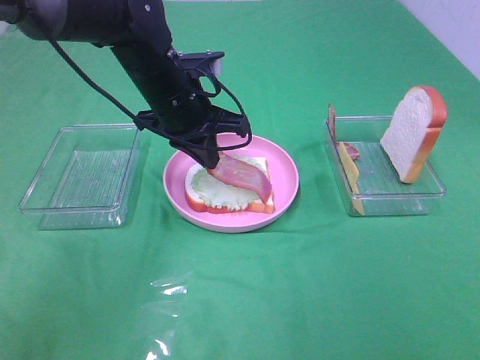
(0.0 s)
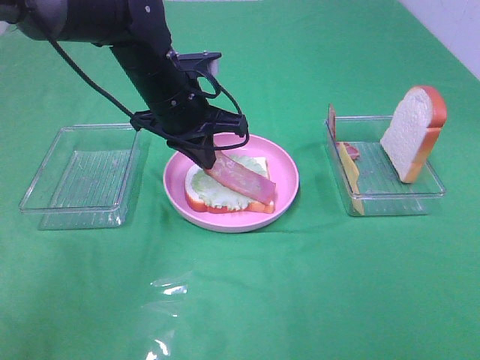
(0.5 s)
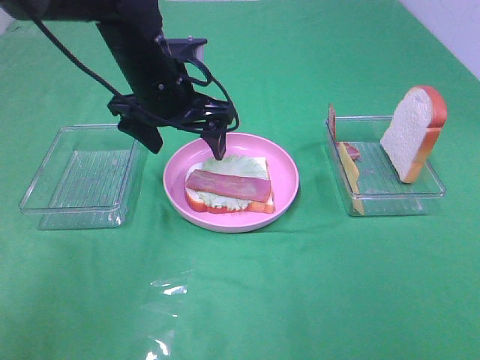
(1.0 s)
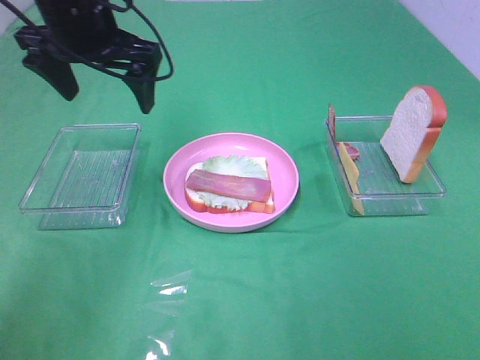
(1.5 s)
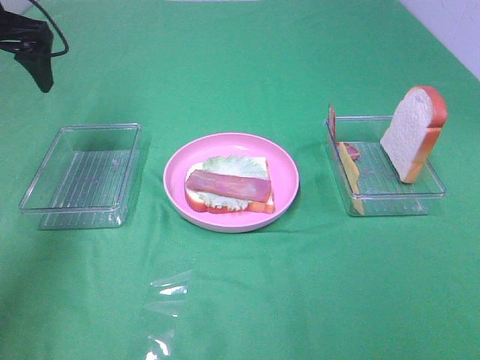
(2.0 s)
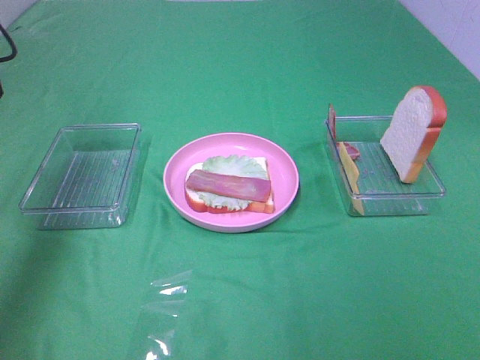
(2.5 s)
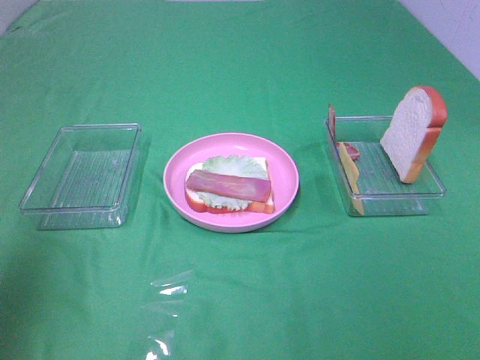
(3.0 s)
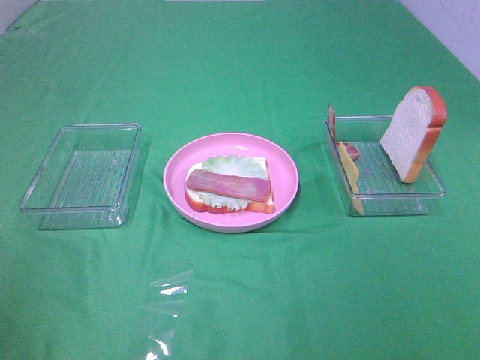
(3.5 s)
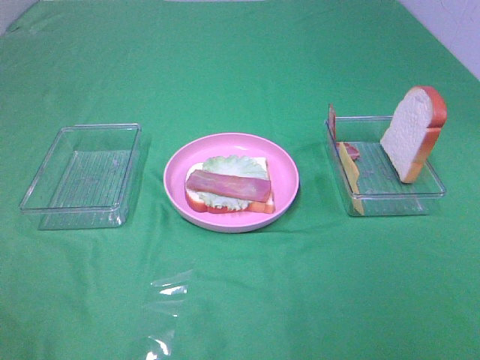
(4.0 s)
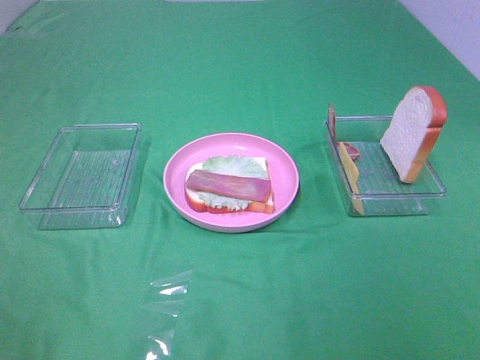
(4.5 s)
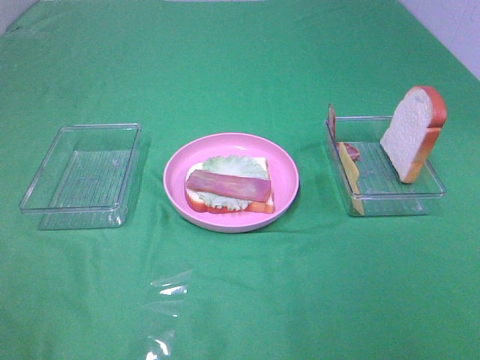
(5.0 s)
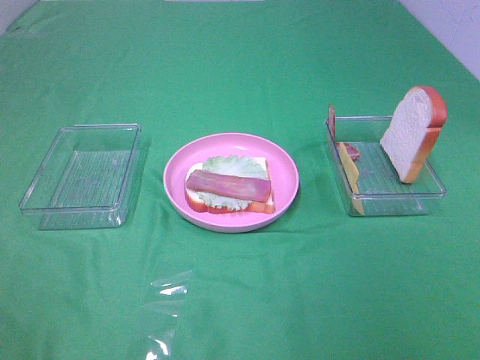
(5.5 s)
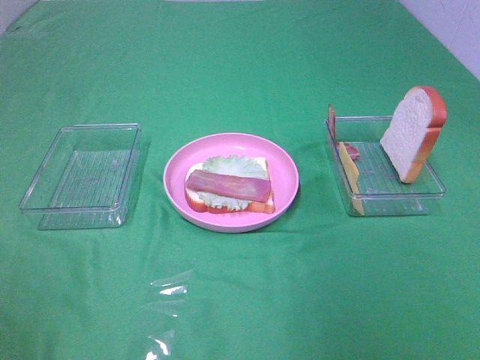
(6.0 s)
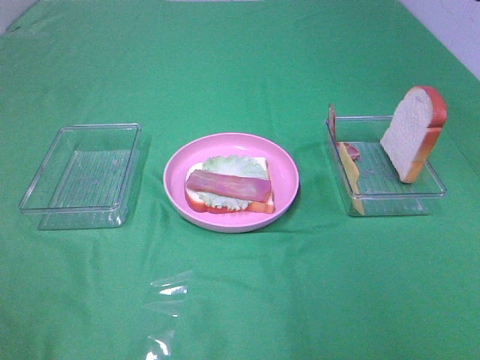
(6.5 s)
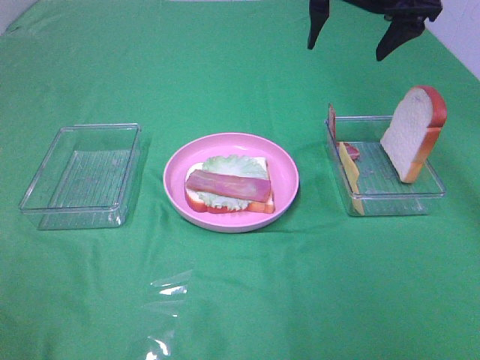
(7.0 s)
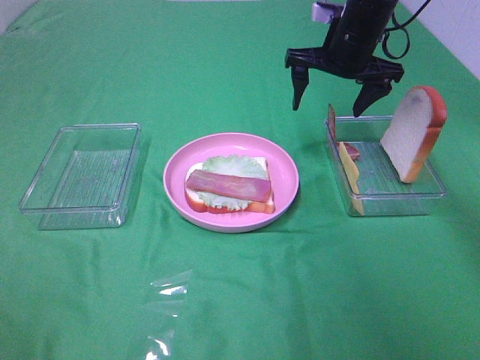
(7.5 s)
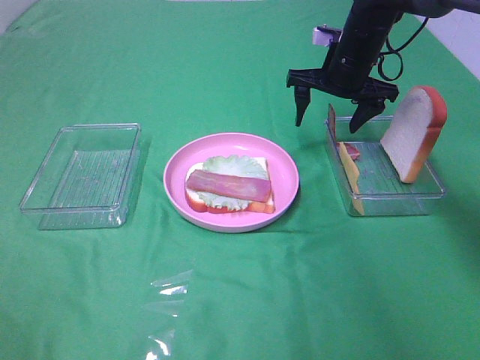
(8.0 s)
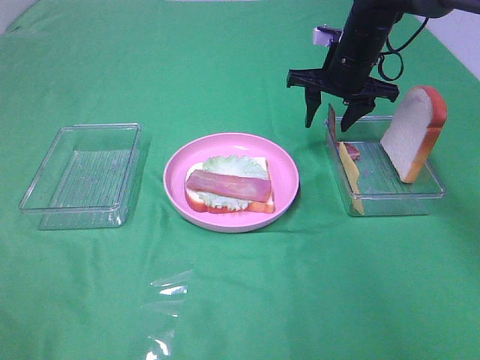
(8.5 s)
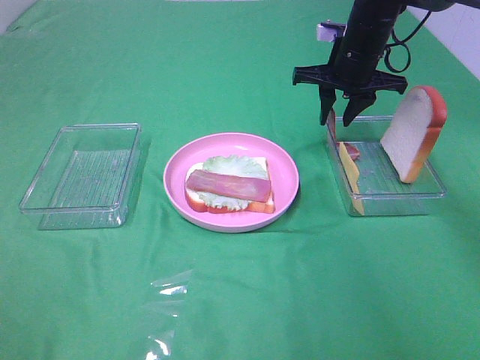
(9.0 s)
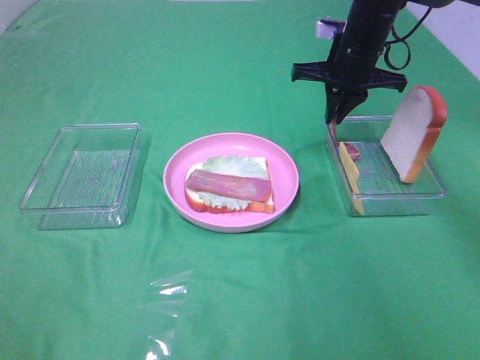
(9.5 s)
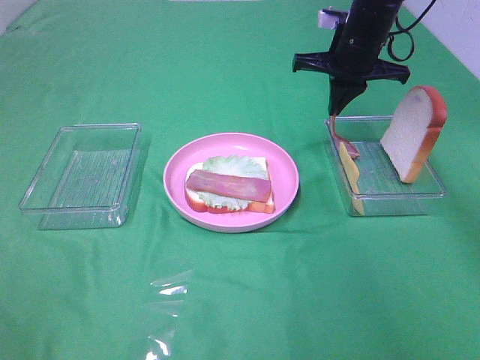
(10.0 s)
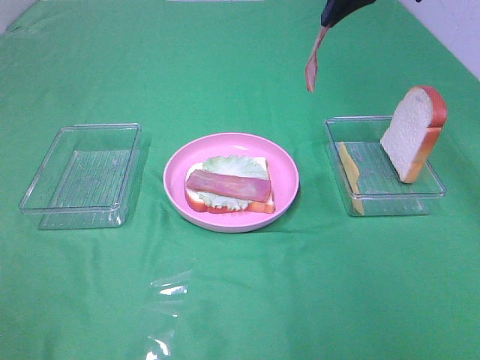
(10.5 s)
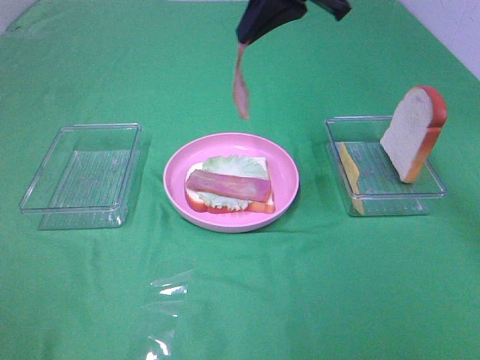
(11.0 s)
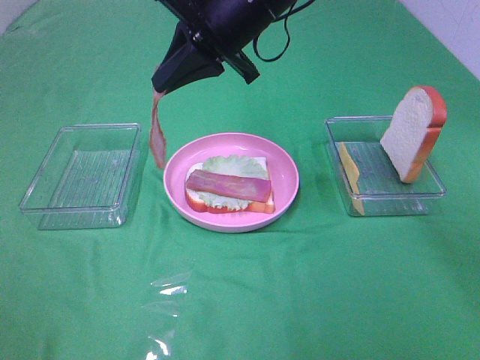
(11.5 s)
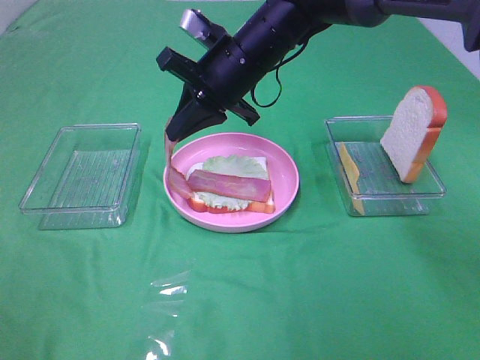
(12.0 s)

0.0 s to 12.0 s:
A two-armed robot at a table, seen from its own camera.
Task of the whole recording: Make sandwiches.
Step, 1.5 to 9.5 s: Right hand:grab the bacon.
0.0 to 2.0 s: The left gripper moves to the left and upward, some 25 cm, and opens its fingers.
2.0 to 4.0 s: The left gripper is displaced backward by some 40 cm.
6.0 to 8.0 s: The right gripper moves forward, downward and to the left, some 40 cm.
8.0 to 10.0 s: The right gripper closes its fingers.
10.0 to 12.0 s: The right gripper is displaced to the left and backward by approximately 15 cm.

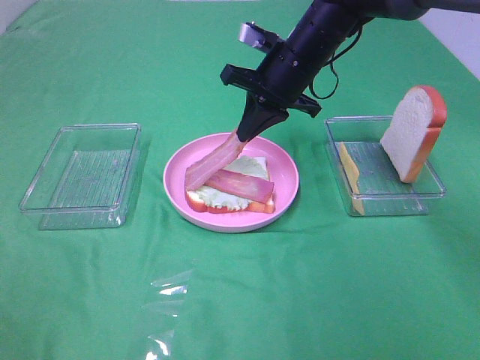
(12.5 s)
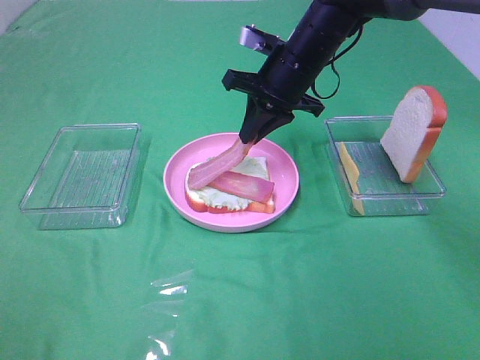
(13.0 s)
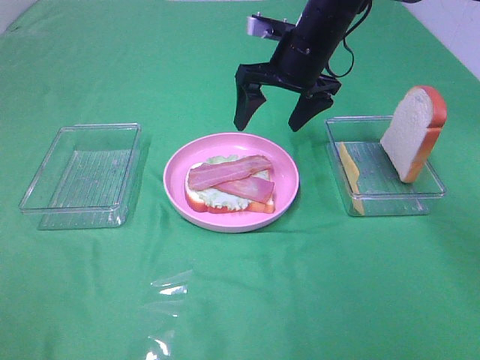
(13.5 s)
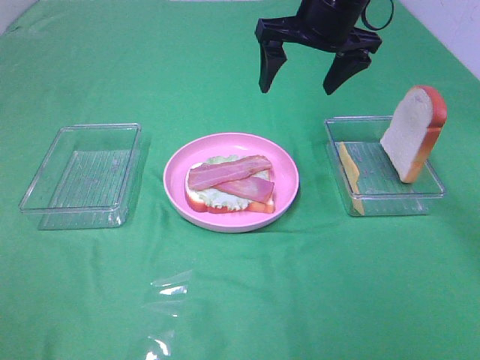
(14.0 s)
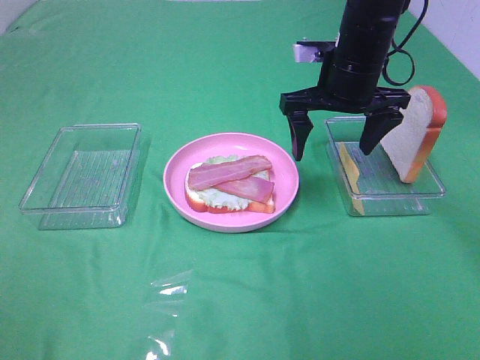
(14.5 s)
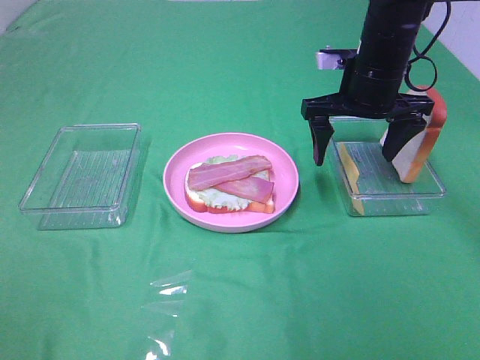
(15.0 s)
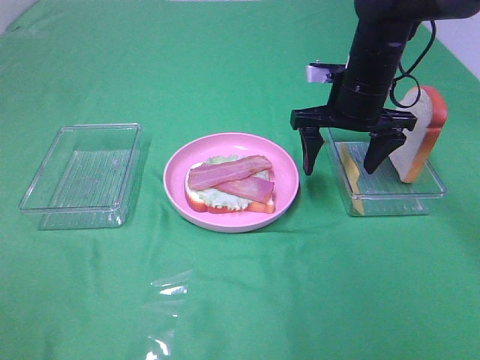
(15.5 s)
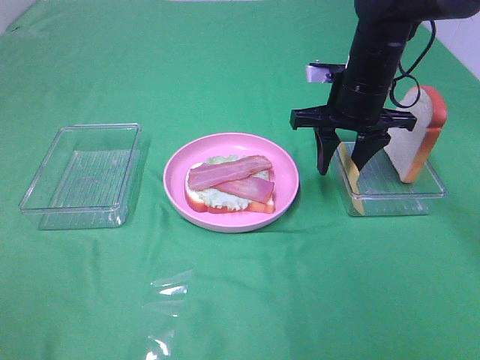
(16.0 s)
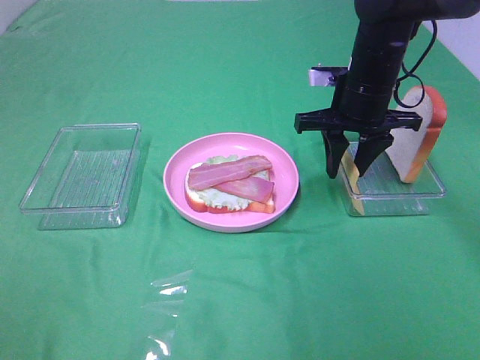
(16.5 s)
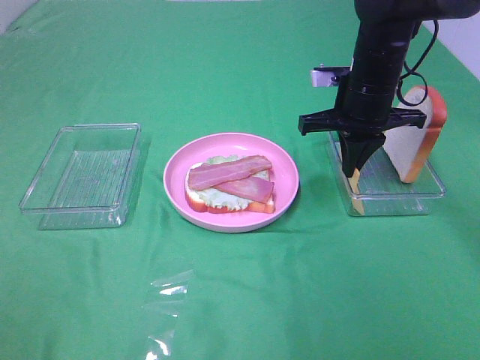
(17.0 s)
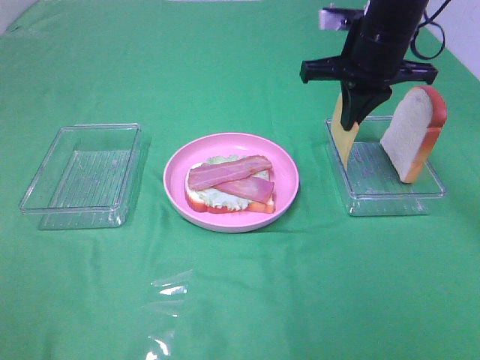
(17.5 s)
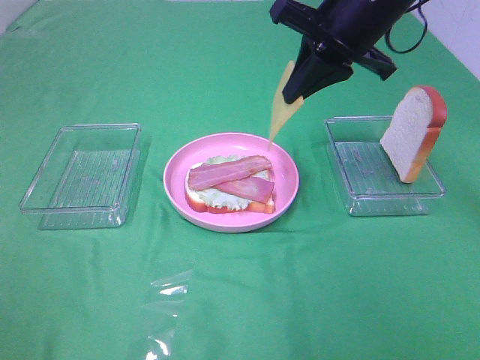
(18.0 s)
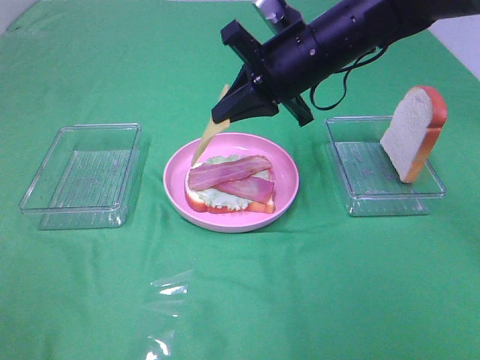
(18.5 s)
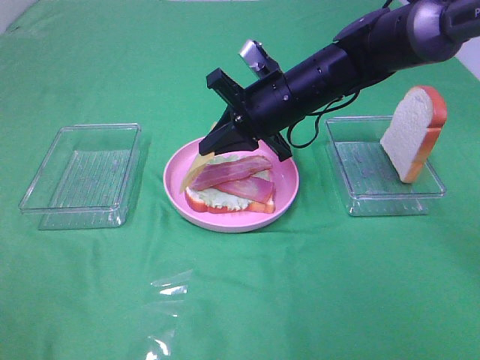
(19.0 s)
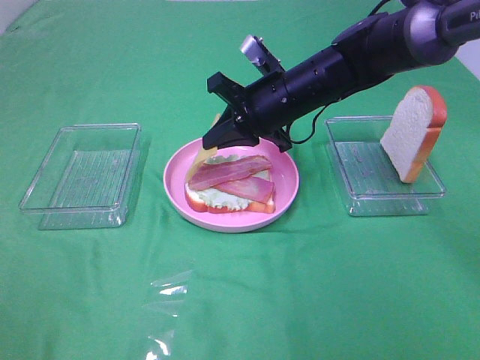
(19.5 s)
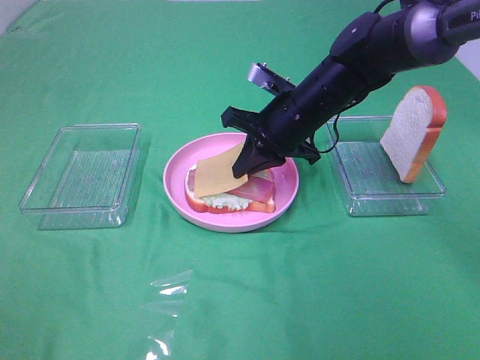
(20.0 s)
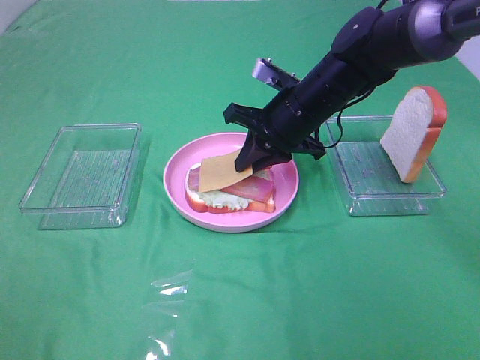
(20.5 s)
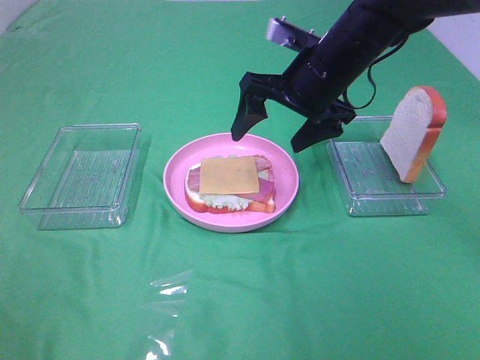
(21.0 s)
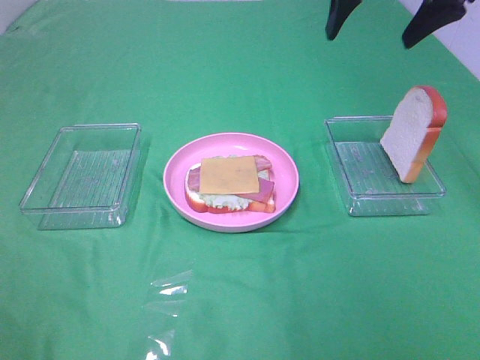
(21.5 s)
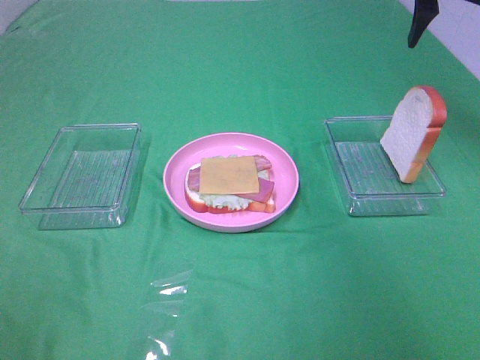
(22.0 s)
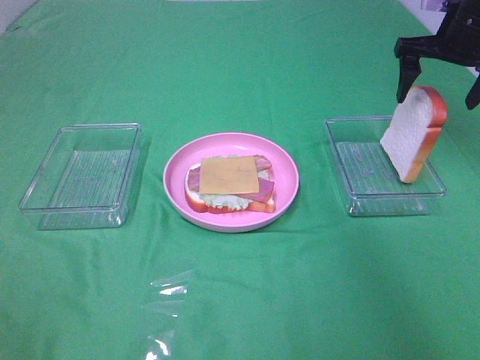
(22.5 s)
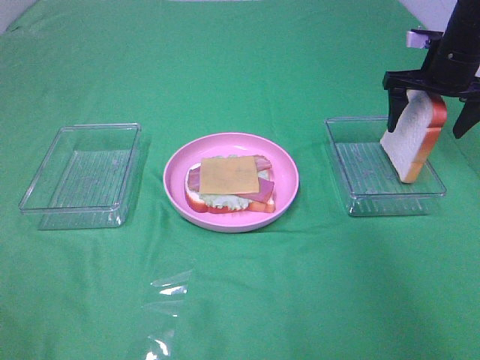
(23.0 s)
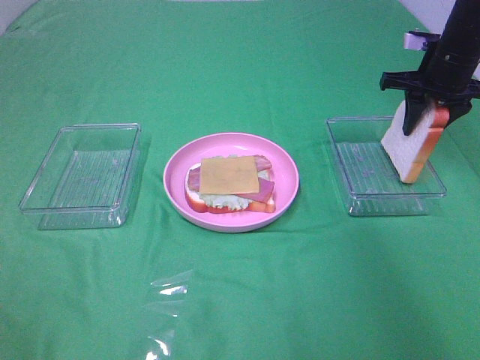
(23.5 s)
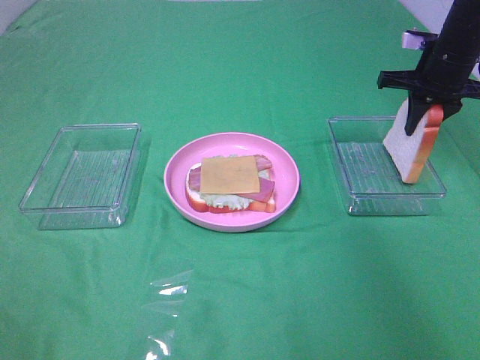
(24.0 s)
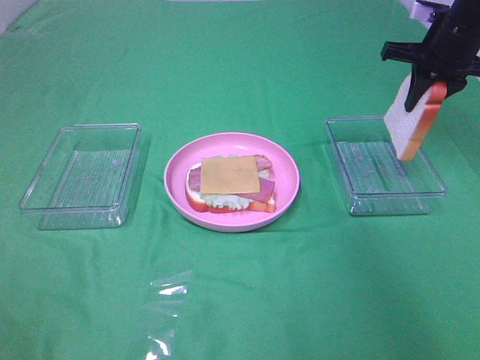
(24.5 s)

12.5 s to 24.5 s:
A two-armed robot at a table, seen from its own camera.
Task of the whole recording: Make sandwiches.
Step, 13.5 to 17.0 s: Right hand:grab the cheese slice.
Step, 17.5 to 20.5 s: Right hand:place the cheese slice on top of the bacon.
Step, 21.0 to 23.5 s: Right hand:grab the bread slice.
12.5 to 14.5 s: The right gripper moves to the right, some 5 cm, moves some 10 cm upward and comes back, and opens.
14.5 to 16.5 s: The right gripper closes.
16.5 to 18.5 s: The right gripper moves to the left, some 5 cm, and closes up.
18.5 to 20.5 s: The right gripper is displaced downward by roughly 5 cm.
20.5 to 22.5 s: The right gripper heads to the right and upward, covering some 20 cm, and opens its fingers.
22.5 to 24.5 s: The right gripper closes up.

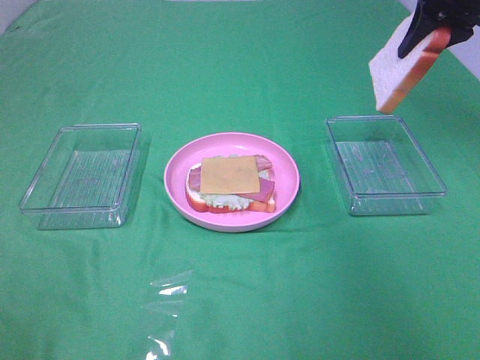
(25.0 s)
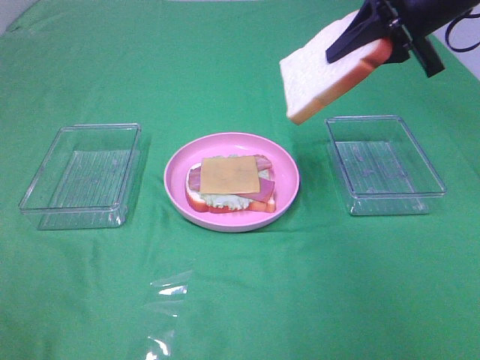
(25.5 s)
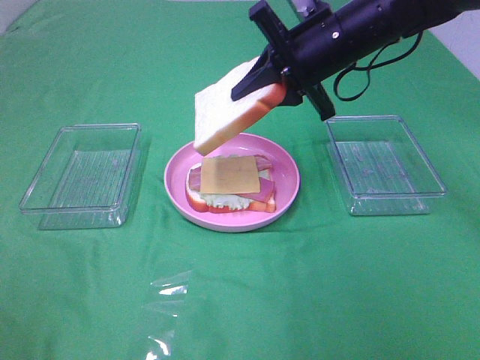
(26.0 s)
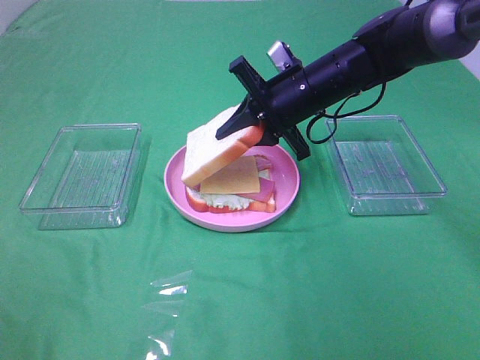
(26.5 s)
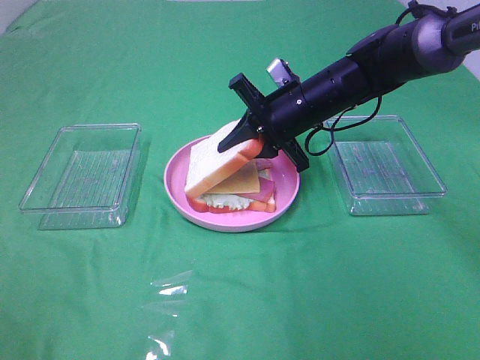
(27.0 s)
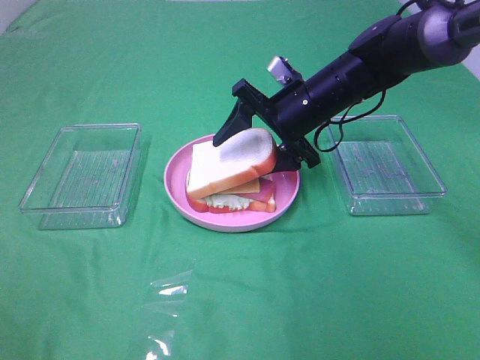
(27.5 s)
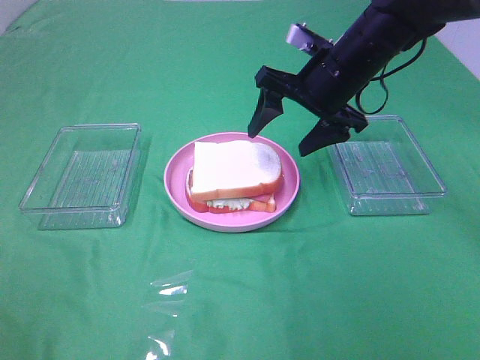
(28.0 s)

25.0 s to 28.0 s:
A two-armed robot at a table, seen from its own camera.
Task of the whole recording: Make sandwiches.
Step, 25.0 to 28.0 s: Right hand:place the bread slice on the cheese slice.
25.0 to 26.5 s: The right gripper heads to the left and downward, covering approximately 25 cm.
26.5 to 28.0 s: The right gripper moves approximately 5 cm, and opens.
